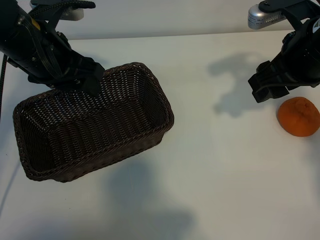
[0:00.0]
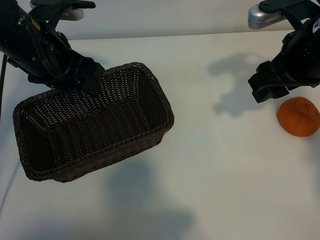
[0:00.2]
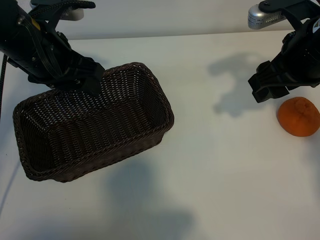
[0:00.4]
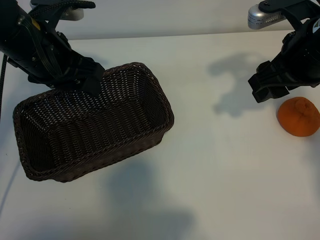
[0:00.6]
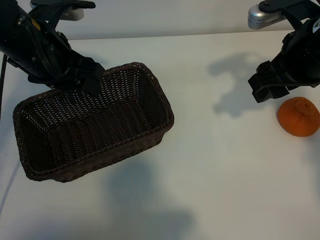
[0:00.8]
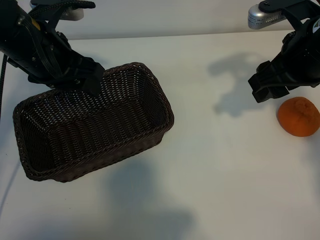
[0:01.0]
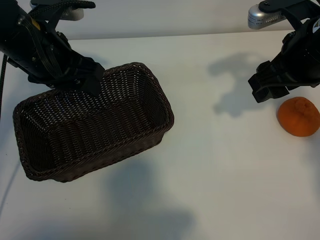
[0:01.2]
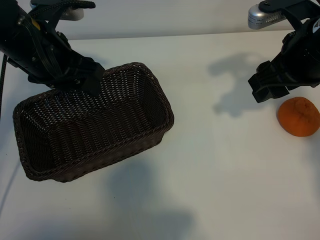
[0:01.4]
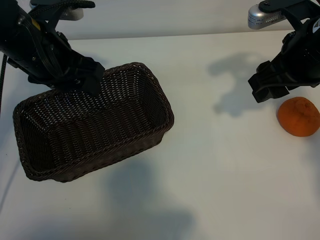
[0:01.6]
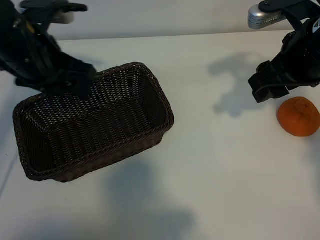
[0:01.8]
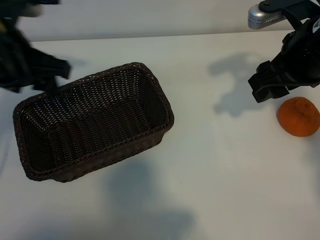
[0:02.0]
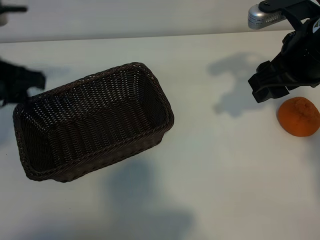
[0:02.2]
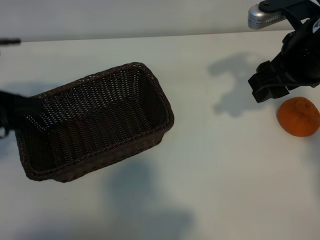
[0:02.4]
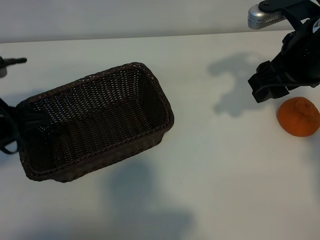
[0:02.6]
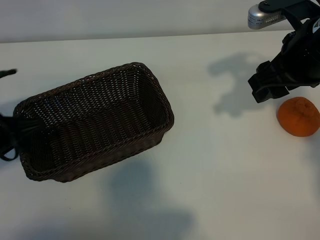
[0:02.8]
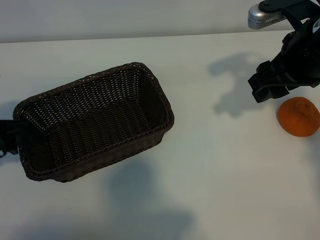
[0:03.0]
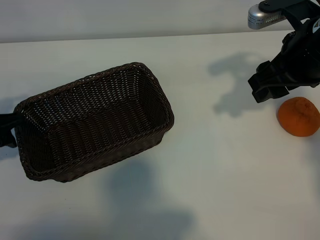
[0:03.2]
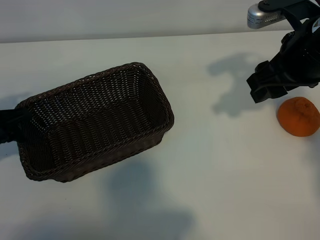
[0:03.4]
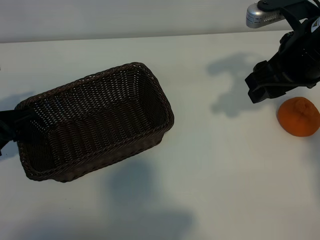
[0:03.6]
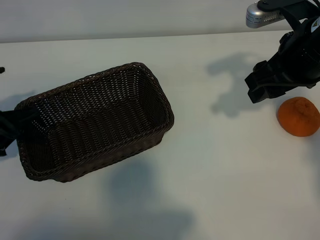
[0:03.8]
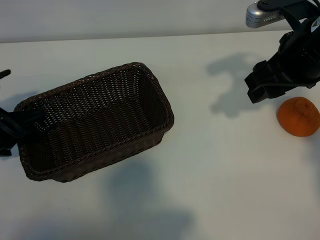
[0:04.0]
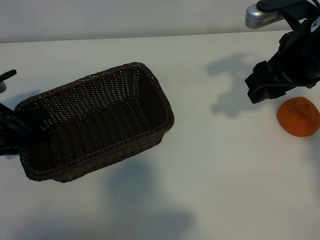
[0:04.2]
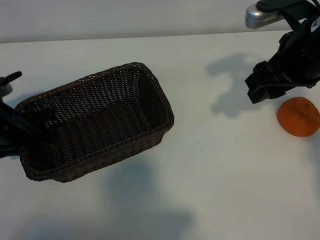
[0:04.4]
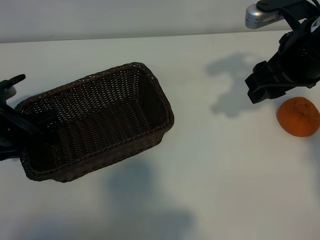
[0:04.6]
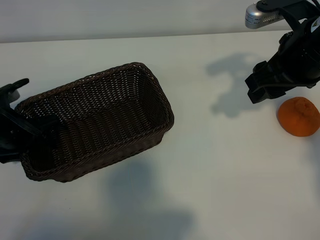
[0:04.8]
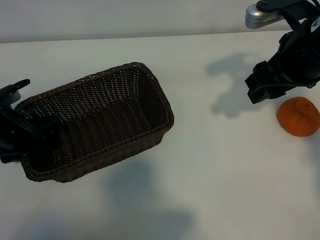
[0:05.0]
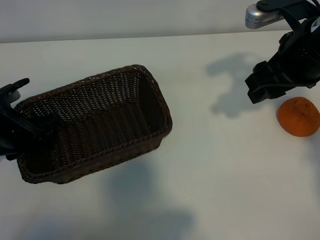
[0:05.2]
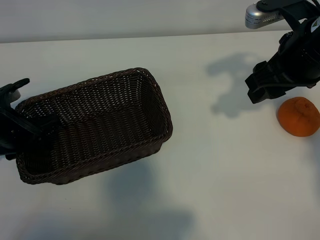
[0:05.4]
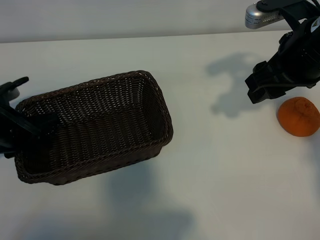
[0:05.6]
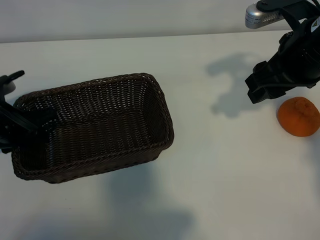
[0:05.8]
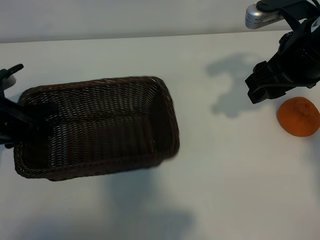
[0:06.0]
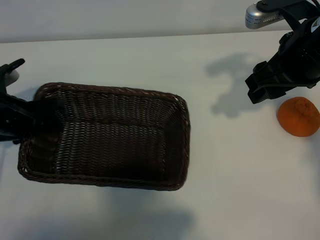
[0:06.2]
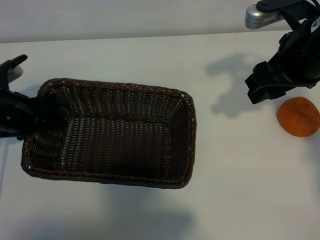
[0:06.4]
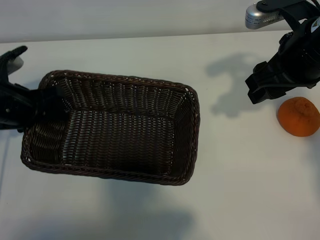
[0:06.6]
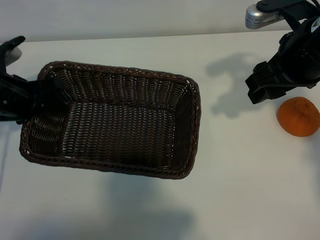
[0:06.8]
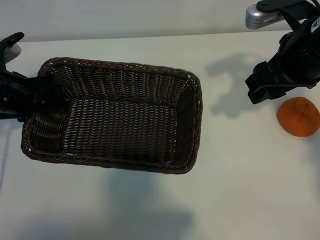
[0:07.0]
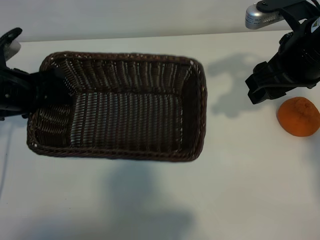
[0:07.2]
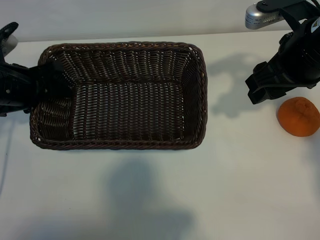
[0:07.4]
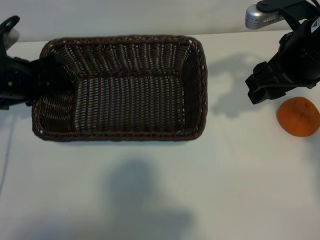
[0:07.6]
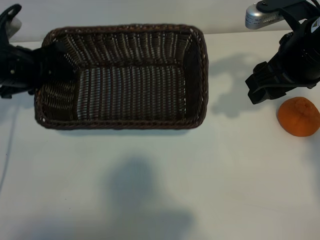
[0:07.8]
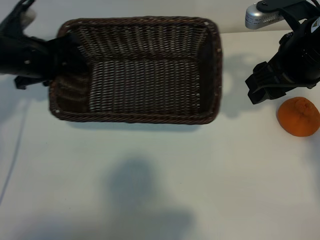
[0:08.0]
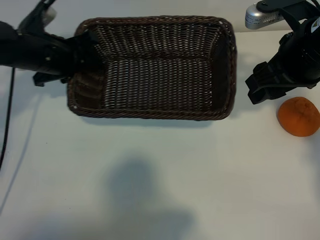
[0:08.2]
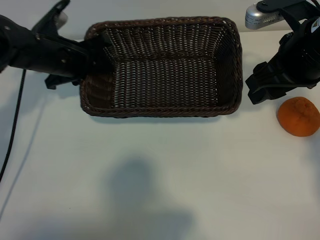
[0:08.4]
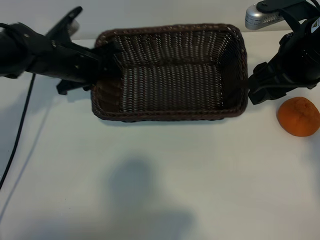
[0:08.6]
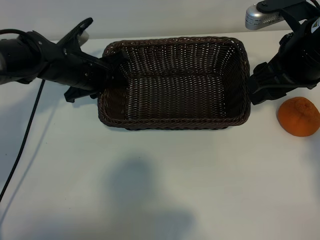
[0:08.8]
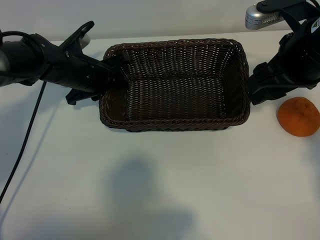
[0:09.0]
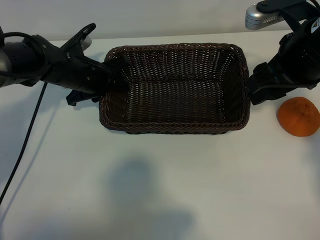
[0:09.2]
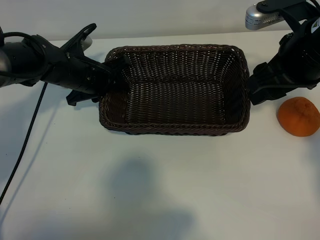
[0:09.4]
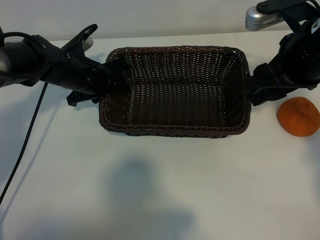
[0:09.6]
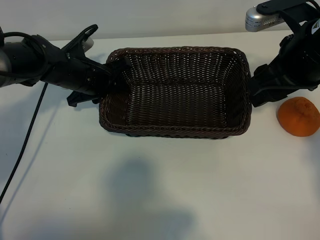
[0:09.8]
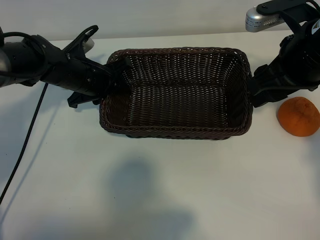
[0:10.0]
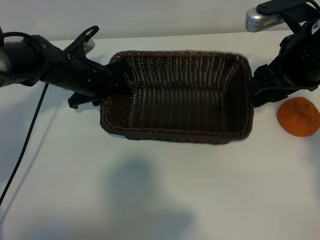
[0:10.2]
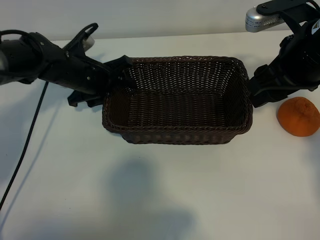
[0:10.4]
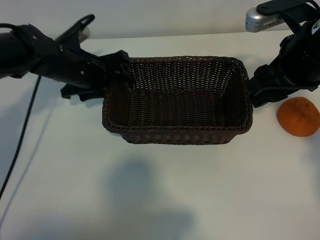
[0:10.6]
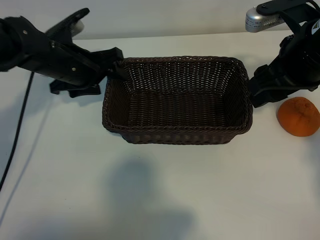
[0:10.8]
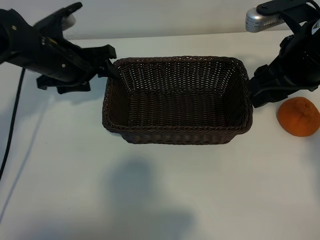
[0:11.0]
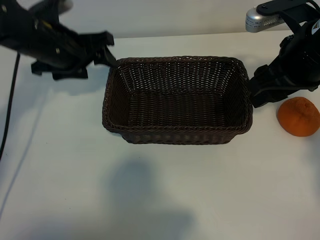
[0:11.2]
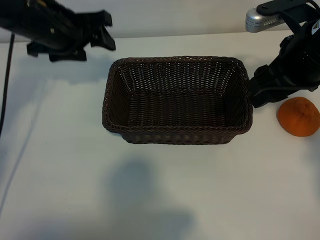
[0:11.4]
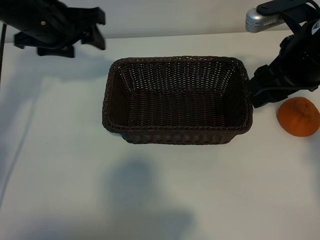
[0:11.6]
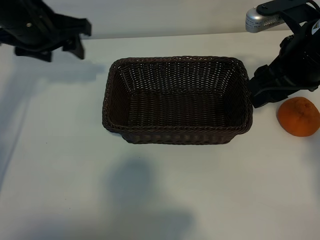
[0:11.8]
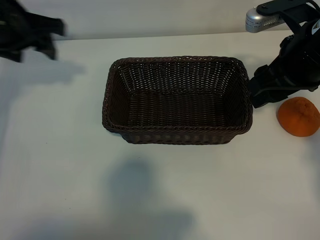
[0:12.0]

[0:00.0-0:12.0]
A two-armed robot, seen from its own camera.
Task of the whole recording: pick up the orange and put it into the basket.
Step, 0:01.6 to 0:05.0: Grasp the basket with left gripper.
Step, 0:05.4 to 0:10.2: Place the basket in the center of view with left gripper.

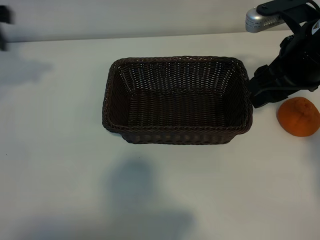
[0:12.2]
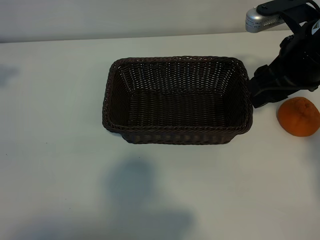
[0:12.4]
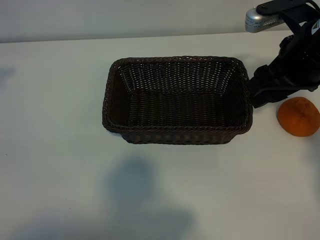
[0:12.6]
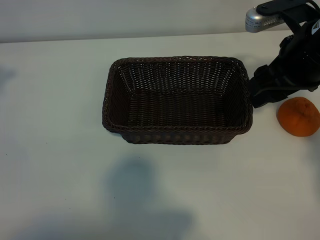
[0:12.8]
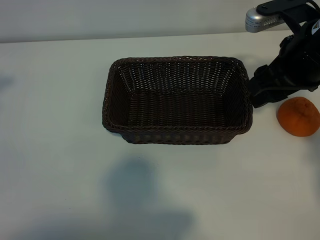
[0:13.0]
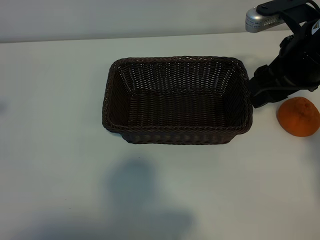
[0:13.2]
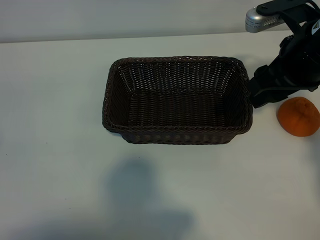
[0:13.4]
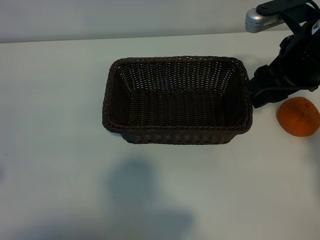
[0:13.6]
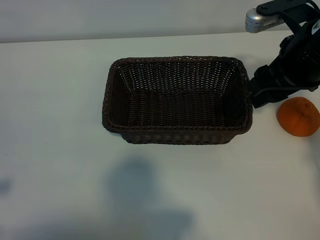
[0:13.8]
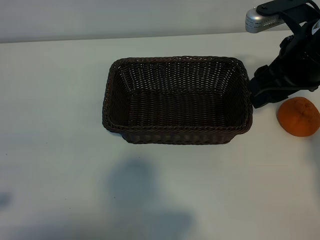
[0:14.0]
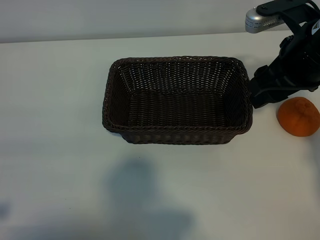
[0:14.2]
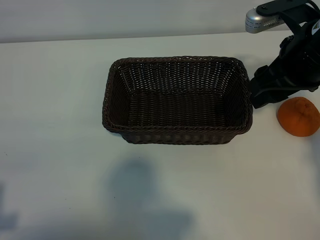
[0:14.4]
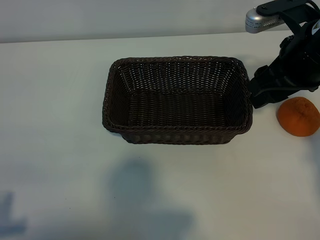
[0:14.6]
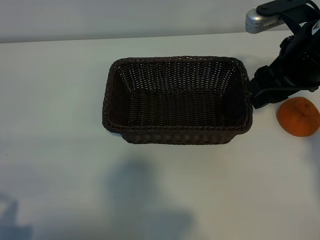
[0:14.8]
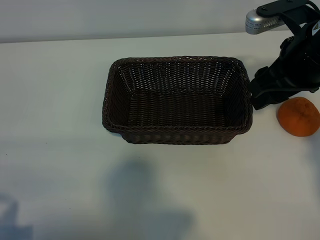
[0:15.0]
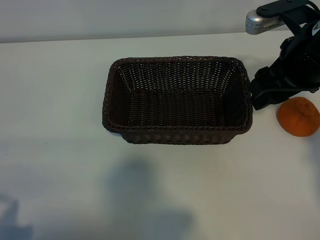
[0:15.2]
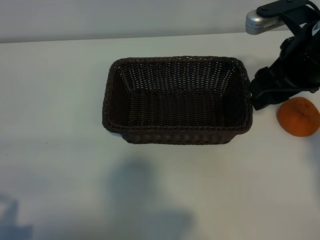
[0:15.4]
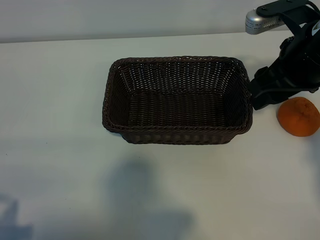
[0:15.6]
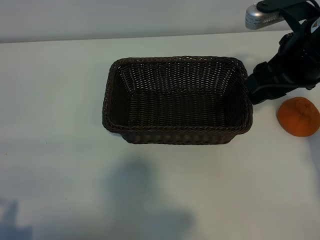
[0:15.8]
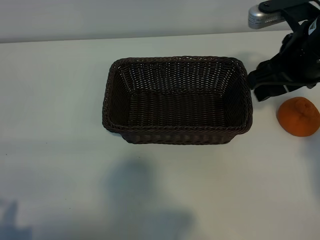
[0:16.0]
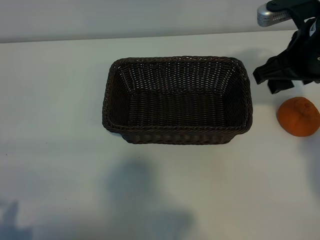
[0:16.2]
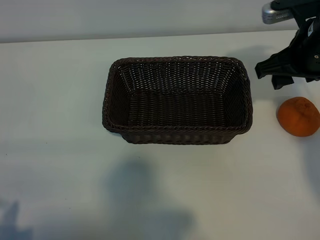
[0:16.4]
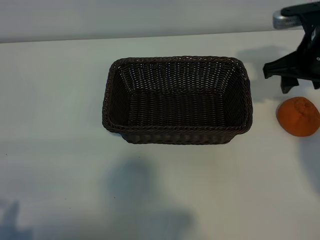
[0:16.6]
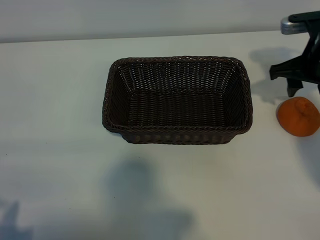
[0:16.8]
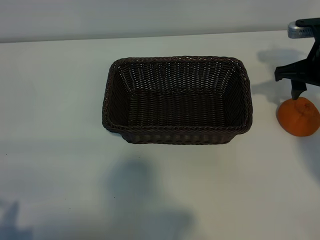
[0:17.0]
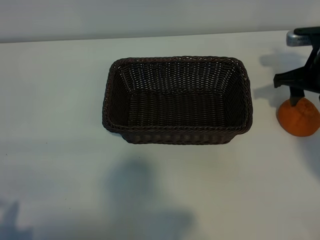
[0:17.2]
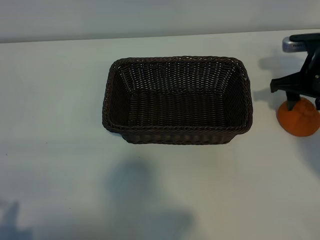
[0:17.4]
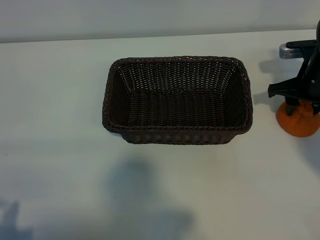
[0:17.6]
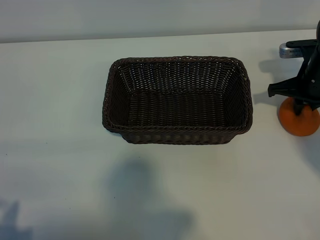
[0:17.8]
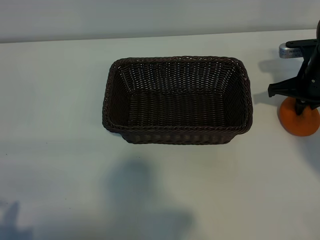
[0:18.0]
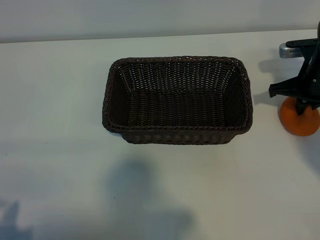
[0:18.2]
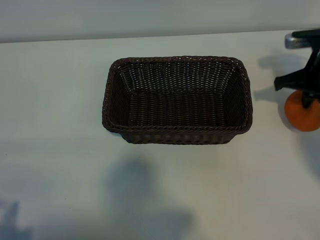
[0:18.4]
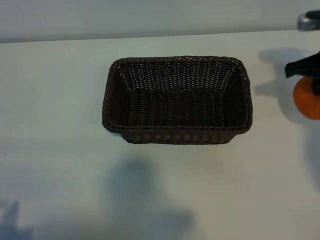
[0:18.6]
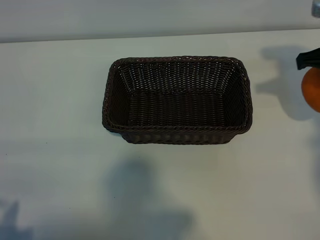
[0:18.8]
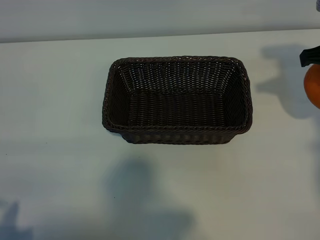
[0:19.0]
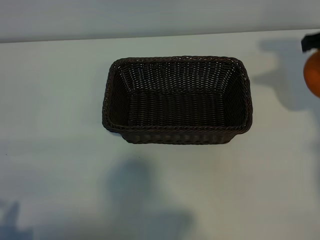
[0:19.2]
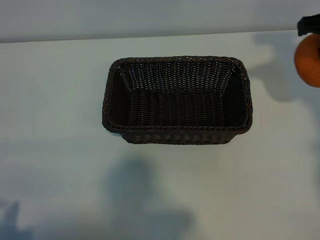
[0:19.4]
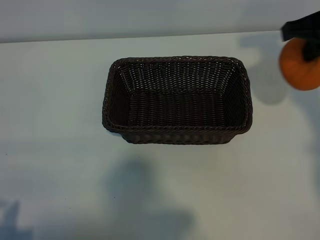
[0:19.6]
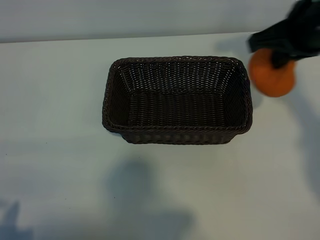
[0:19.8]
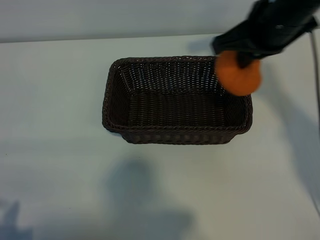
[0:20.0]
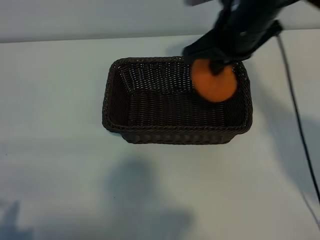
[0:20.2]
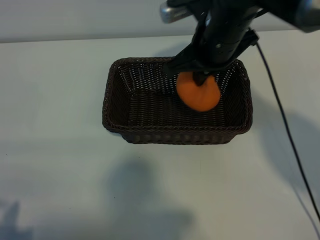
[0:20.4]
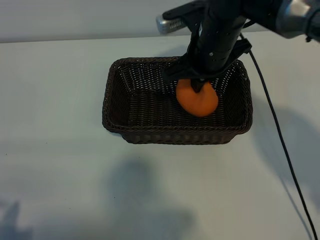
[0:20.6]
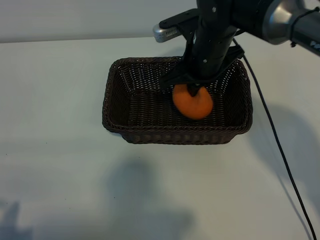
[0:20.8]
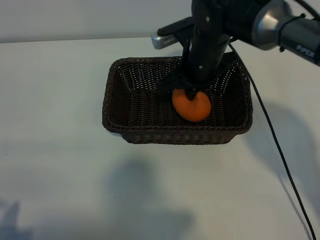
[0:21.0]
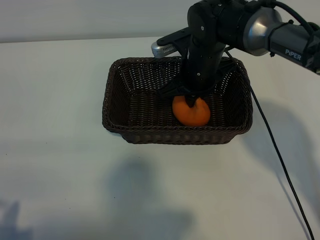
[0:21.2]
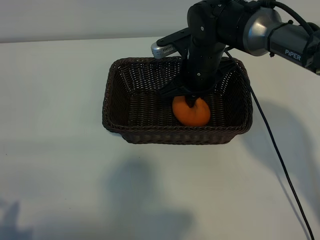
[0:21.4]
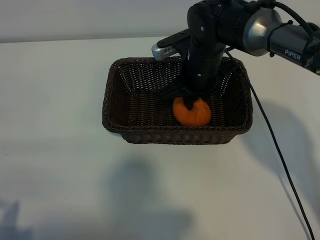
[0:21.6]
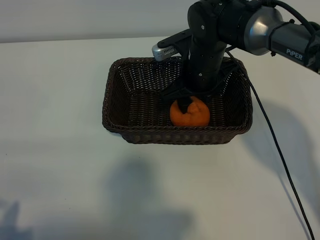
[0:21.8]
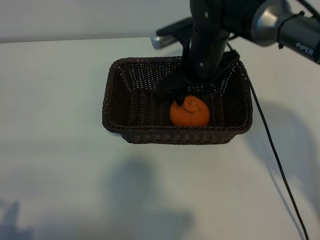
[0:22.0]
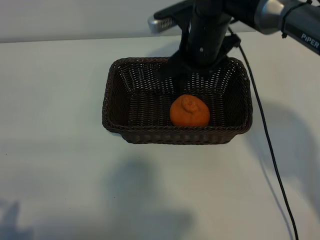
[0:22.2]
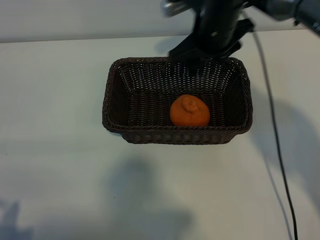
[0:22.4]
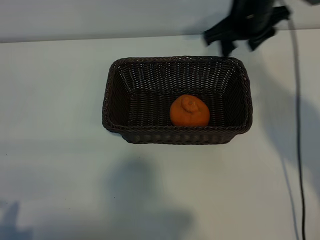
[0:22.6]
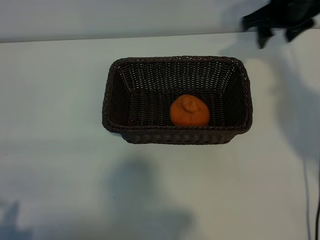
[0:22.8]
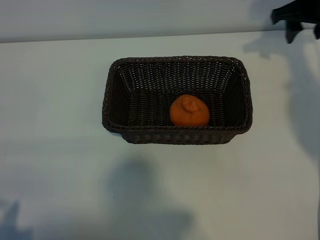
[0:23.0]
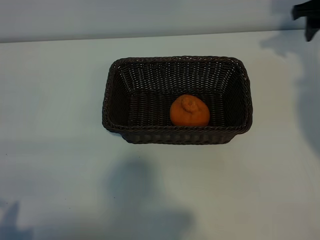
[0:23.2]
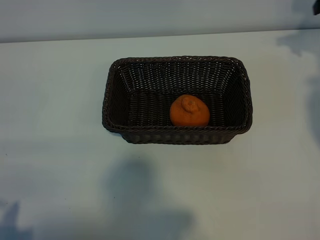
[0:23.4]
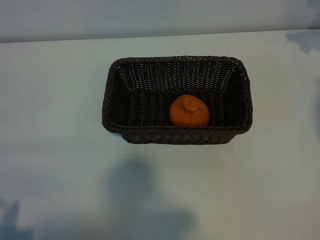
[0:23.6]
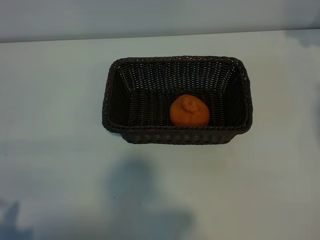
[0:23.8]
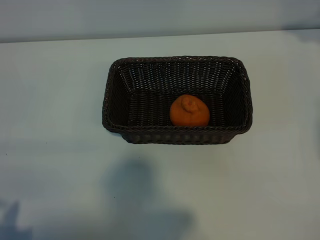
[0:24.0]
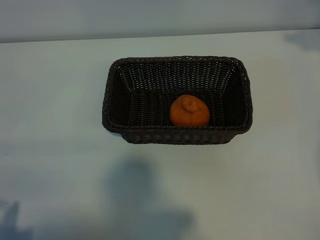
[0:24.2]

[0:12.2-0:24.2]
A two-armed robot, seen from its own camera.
Task of the whole recording: pick up the orange and put it into the basket.
Step, 0:12.2 to 0:17.8: Grasp the orange with right gripper.
Step, 0:18.0 to 0:21.8: Place the orange in the basket with right gripper.
